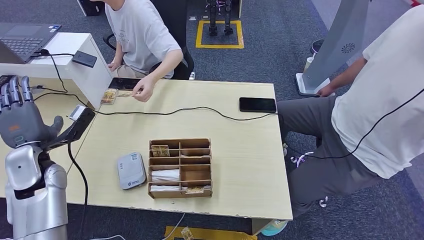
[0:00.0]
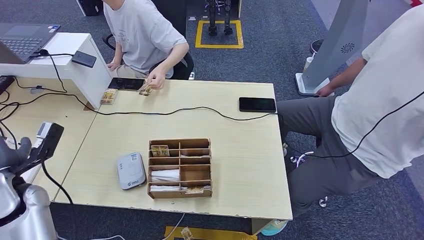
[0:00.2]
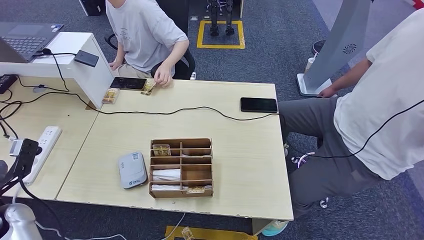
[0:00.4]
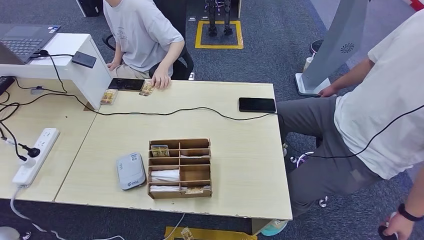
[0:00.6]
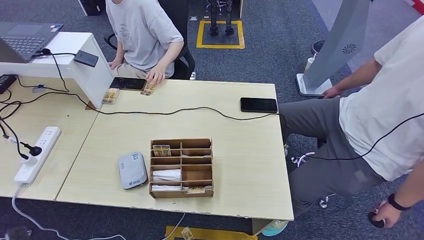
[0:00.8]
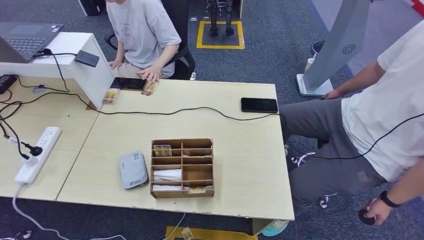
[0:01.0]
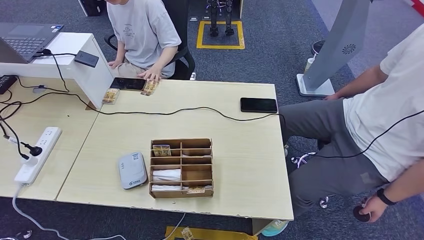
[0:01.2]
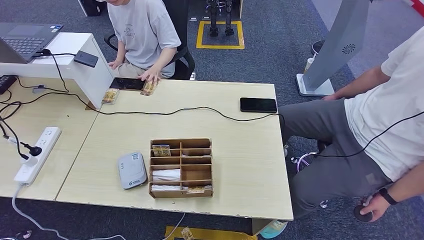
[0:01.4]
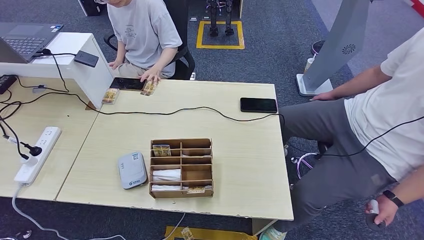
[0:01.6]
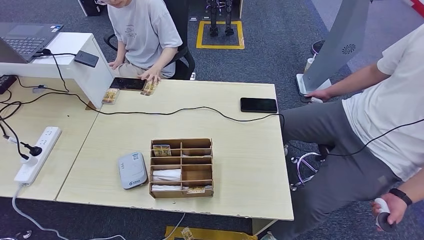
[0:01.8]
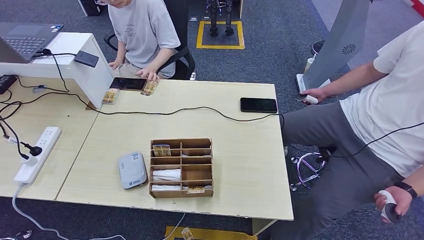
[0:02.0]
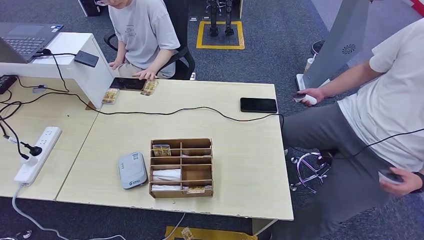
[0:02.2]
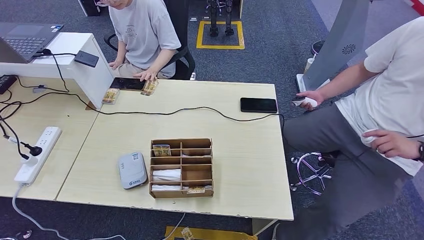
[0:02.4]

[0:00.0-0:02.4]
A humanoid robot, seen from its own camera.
Step, 0:00.0 to 0:02.4: Hand the room key to the person.
